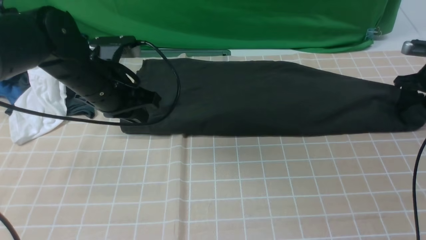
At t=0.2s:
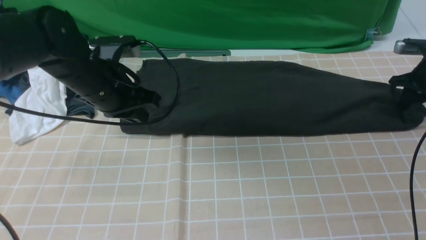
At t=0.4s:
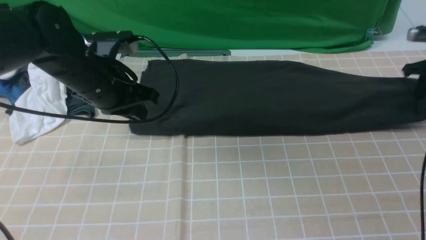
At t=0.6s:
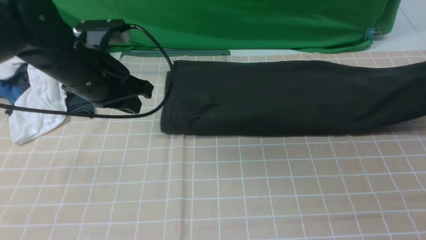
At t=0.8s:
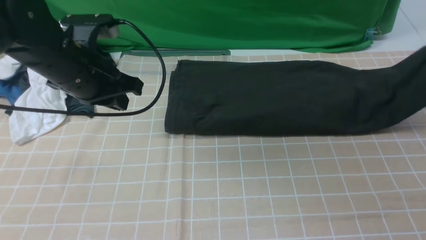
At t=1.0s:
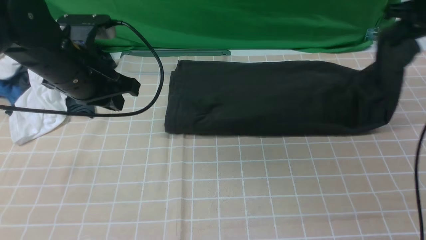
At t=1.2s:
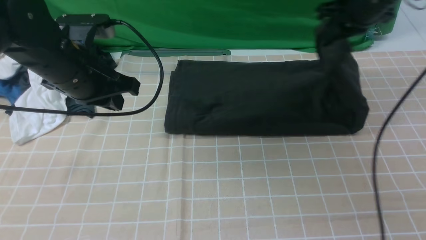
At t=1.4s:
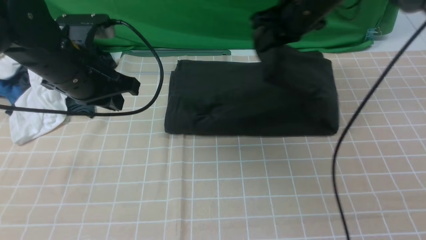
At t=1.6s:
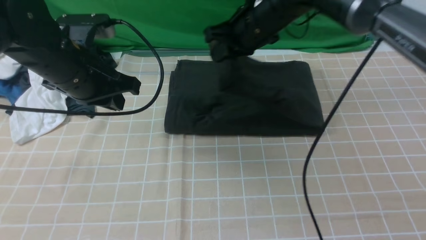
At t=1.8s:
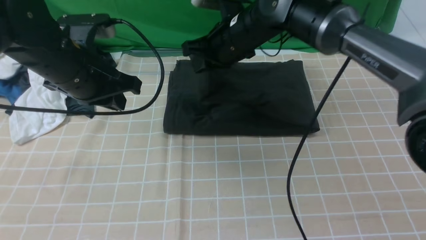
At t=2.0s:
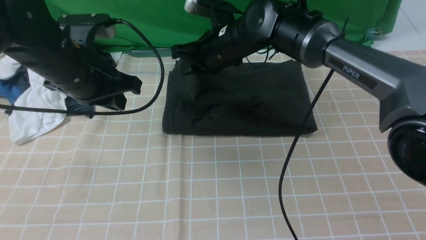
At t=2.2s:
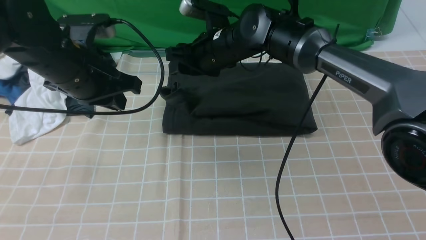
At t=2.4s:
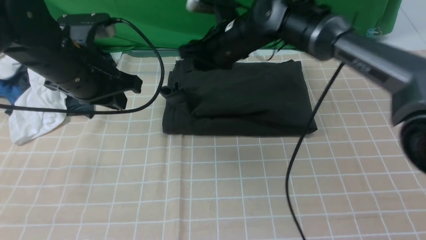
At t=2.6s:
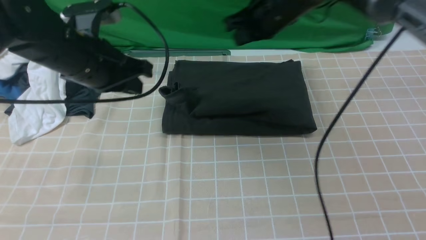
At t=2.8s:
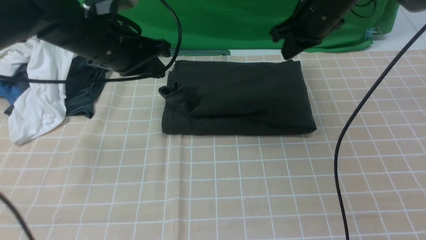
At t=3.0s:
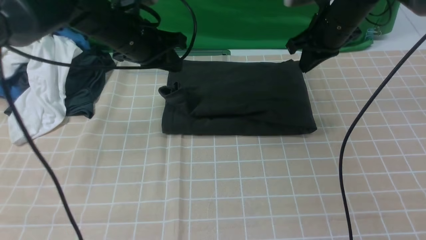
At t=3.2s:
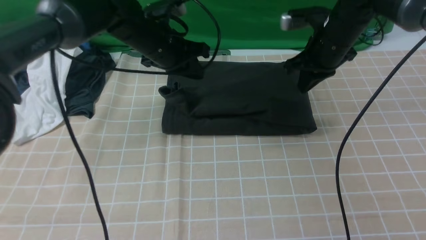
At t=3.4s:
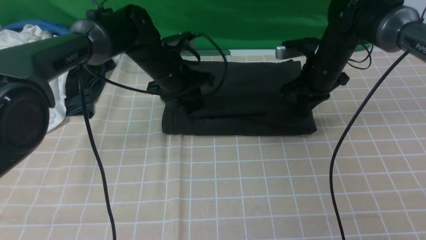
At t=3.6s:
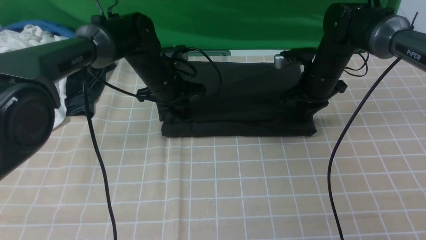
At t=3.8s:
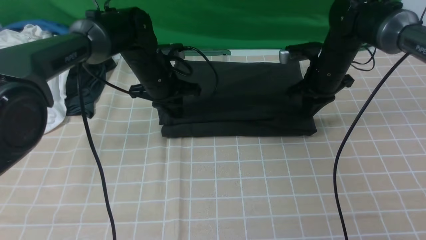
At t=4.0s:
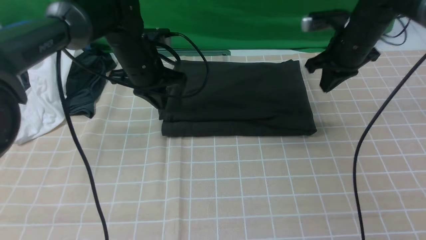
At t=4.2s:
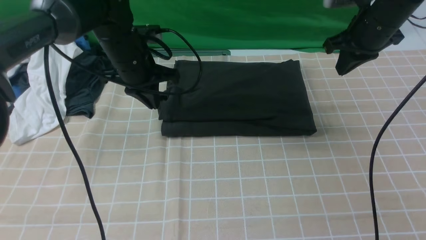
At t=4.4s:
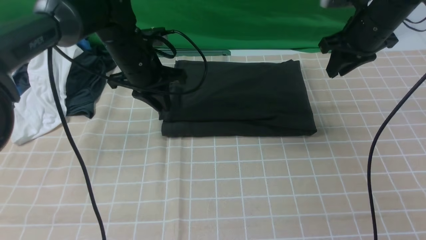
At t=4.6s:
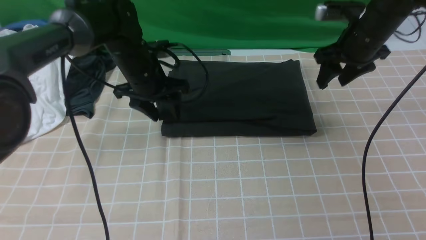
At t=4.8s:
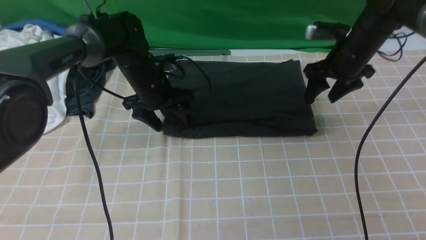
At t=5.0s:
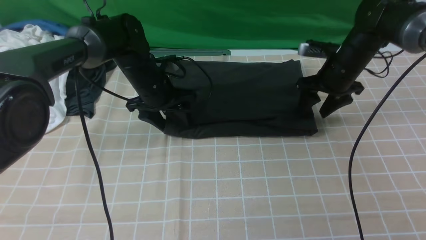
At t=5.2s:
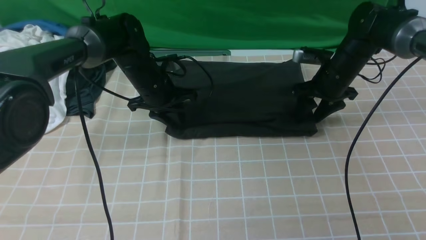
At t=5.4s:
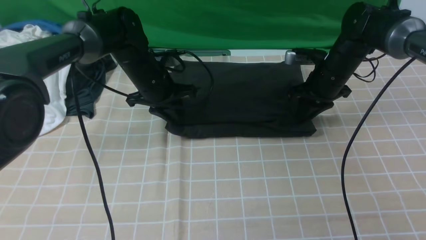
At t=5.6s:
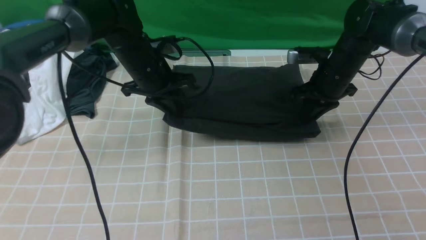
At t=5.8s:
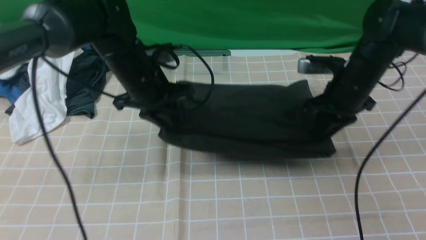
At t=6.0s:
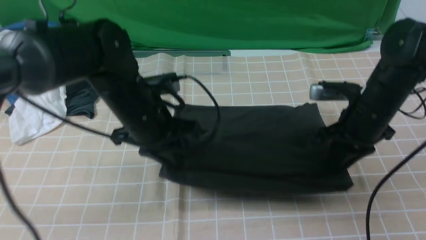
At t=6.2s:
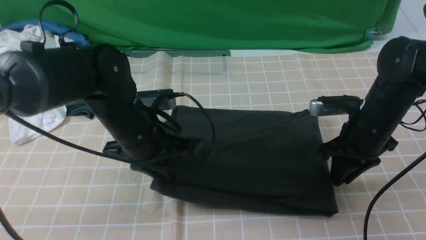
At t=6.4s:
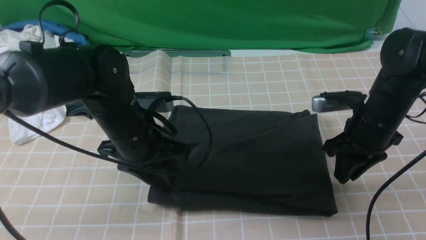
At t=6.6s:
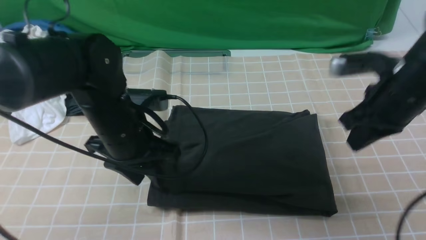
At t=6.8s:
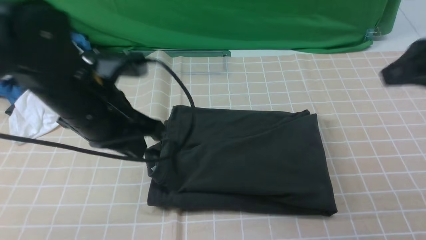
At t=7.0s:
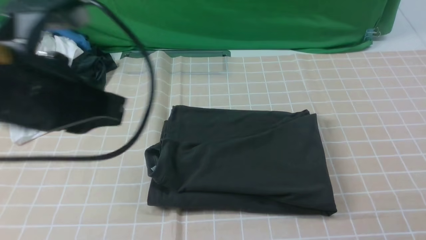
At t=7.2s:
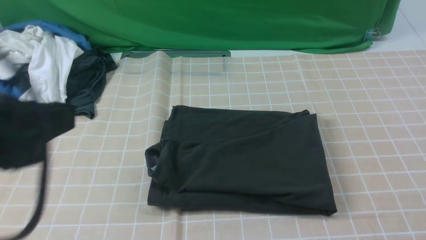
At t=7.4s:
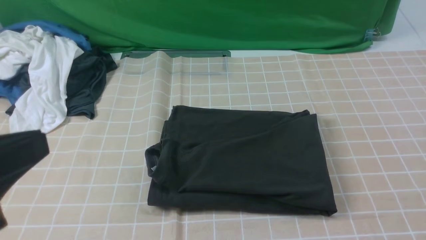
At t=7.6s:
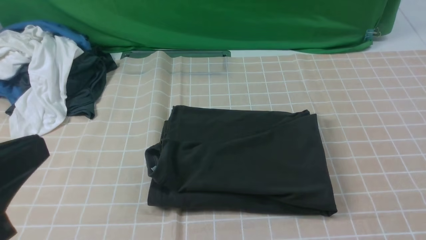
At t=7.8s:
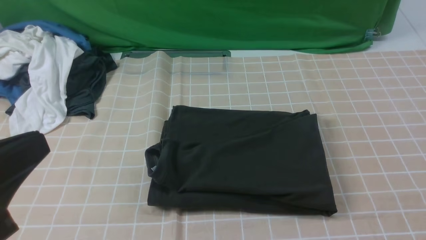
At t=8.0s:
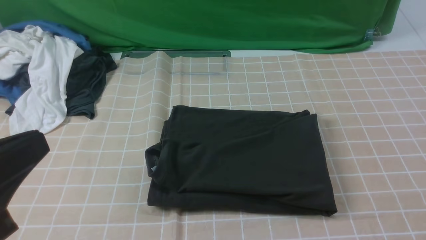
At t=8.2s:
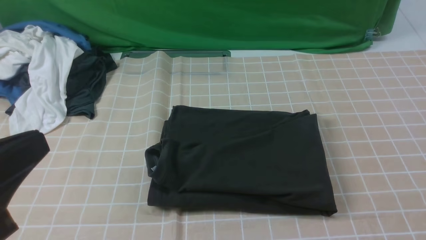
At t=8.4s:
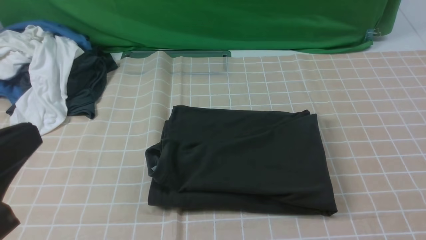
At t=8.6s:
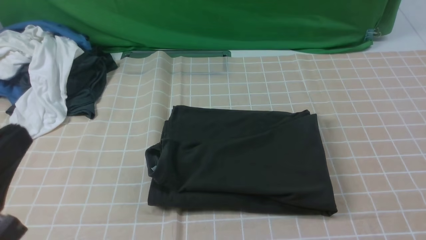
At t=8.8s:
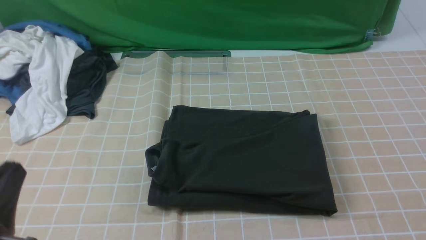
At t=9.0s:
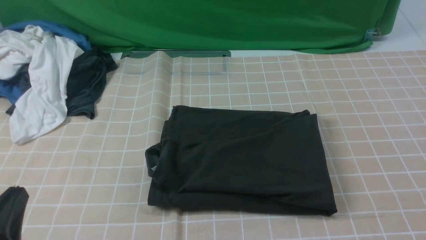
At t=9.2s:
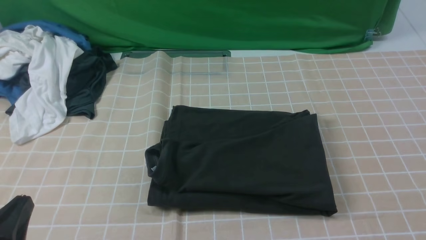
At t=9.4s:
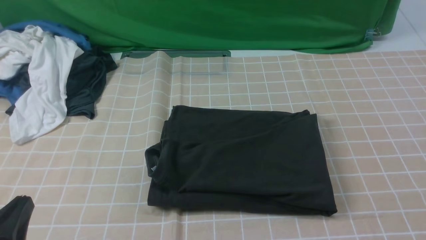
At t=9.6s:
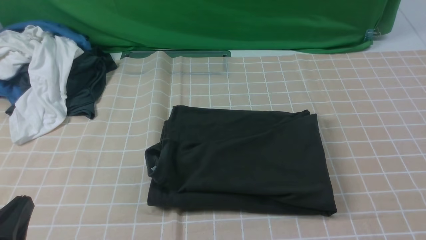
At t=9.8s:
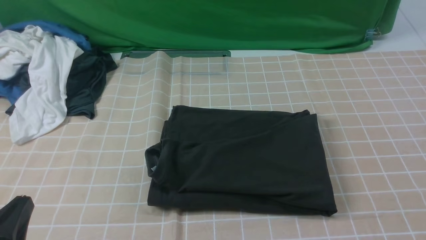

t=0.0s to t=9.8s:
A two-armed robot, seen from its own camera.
Step, t=0.4s to t=2.2s: use the right arm to drag the right edge of the fabric to the left and folds it over the left edge.
t=0.0s to t=1.4s: The right gripper moves to the left and upward, about 35 cm, and closes up.
t=1.4s to t=2.8s: The right gripper goes to the left and returns, approximately 10 cm each way, and opens, then closes once more, while the left gripper is displaced forward by approximately 5 cm.
t=2.8s to t=4.2s: The left gripper travels downward by approximately 5 cm, while the right gripper is displaced to the right by approximately 10 cm, and goes downward and returns, about 10 cm each way.
t=4.2s to t=5.6s: The left gripper opens, then closes again. The right gripper travels downward by some 10 cm, and opens, then closes again.
t=5.6s to t=7.0s: Both grippers travel together backward and upward, approximately 35 cm. The left gripper opens and closes again.
t=7.0s to t=8.4s: The right gripper is displaced backward and downward by approximately 15 cm, and opens its fingers. The left gripper goes roughly 10 cm backward and to the left.
t=8.4s to t=9.8s: The left gripper shifts roughly 15 cm downward.

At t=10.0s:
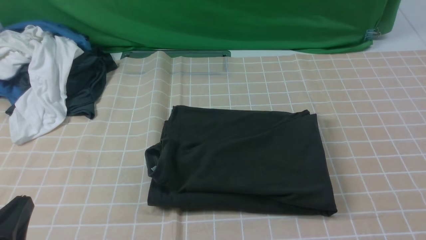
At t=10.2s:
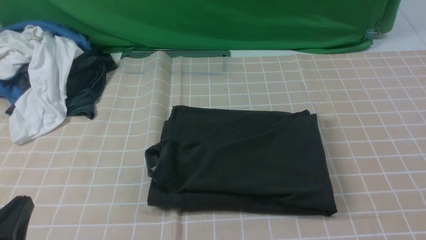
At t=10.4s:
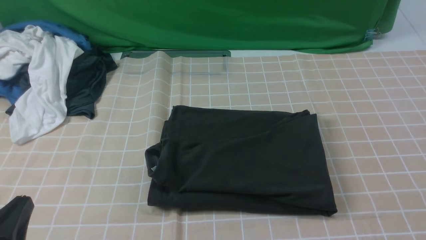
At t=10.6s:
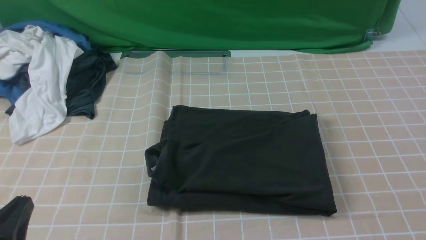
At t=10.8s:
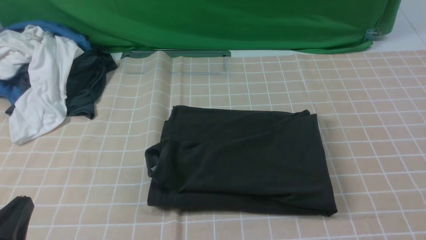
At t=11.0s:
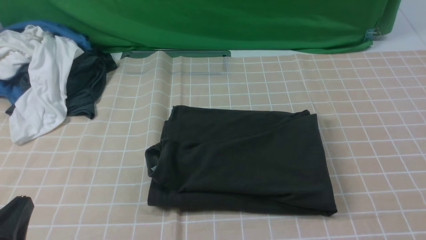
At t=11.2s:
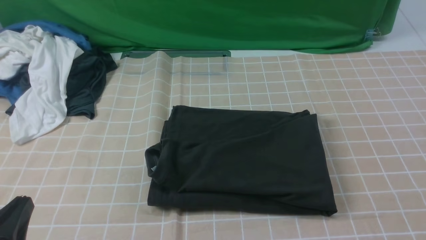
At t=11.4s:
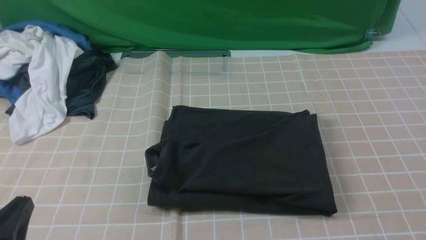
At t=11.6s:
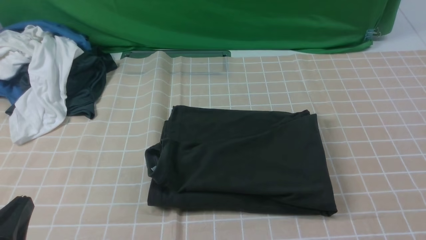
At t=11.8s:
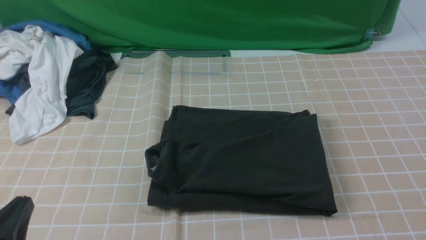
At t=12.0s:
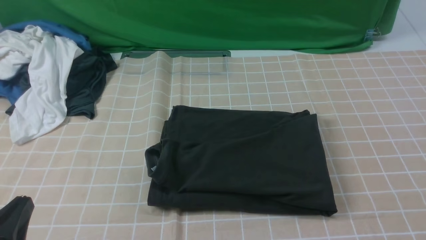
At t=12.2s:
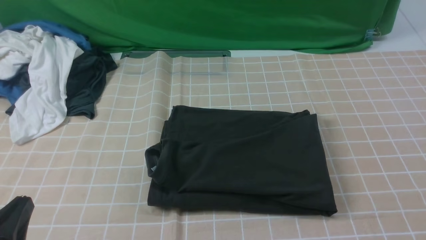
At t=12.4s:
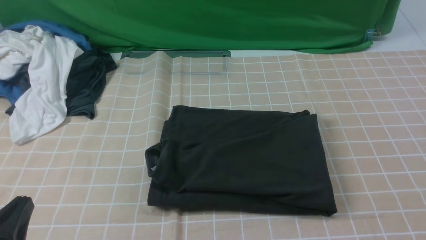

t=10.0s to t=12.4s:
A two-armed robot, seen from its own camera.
t=11.2s to t=12.4s: Both grippers stay about where they are.
